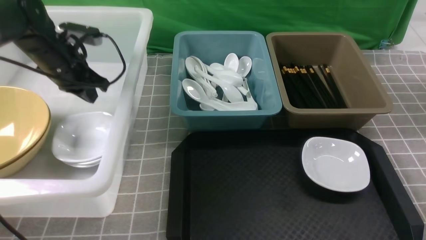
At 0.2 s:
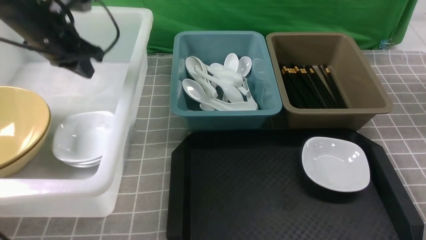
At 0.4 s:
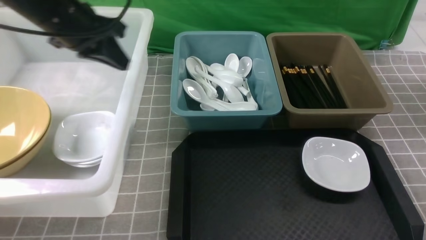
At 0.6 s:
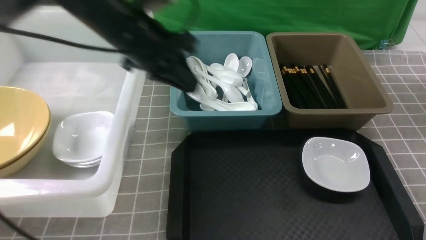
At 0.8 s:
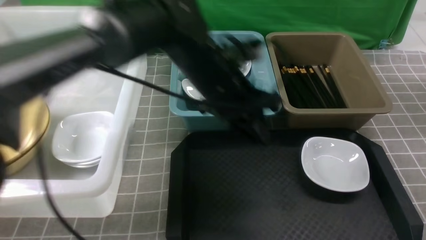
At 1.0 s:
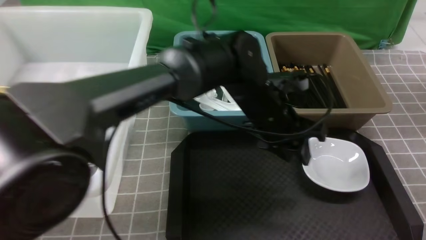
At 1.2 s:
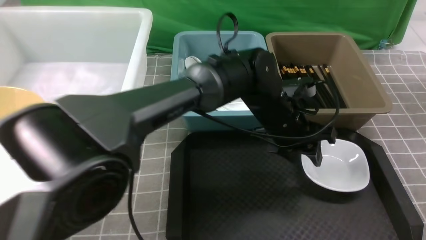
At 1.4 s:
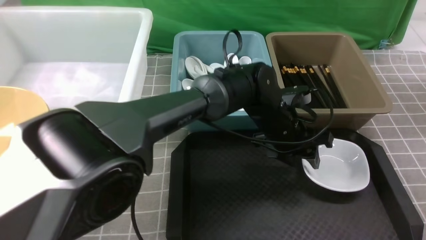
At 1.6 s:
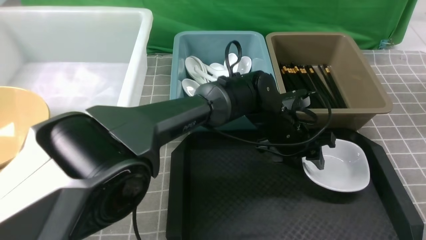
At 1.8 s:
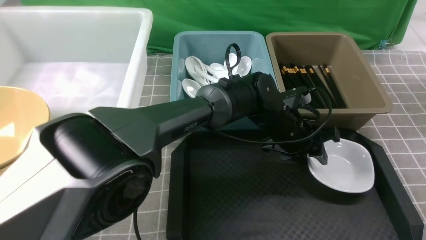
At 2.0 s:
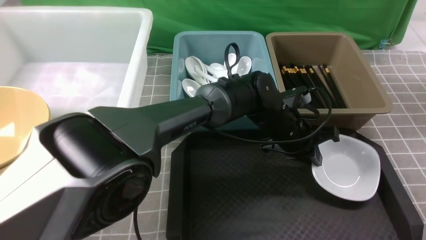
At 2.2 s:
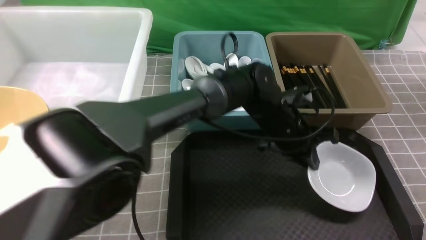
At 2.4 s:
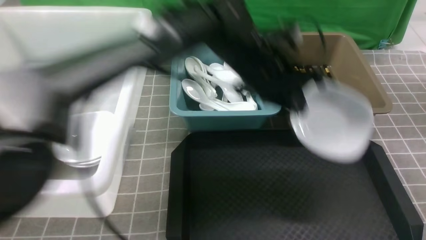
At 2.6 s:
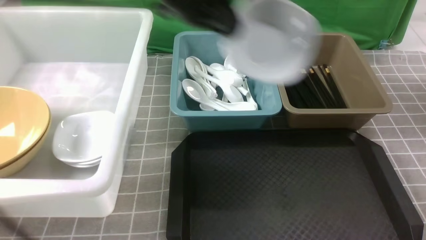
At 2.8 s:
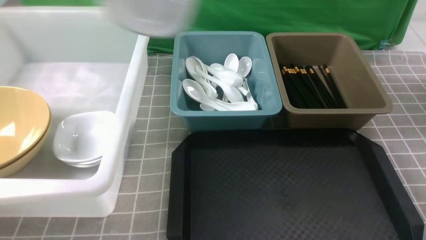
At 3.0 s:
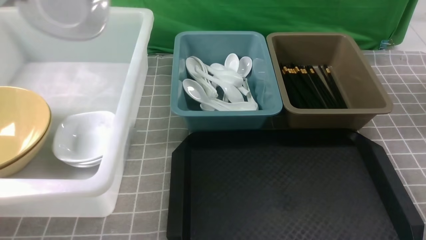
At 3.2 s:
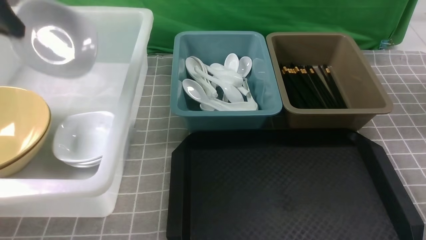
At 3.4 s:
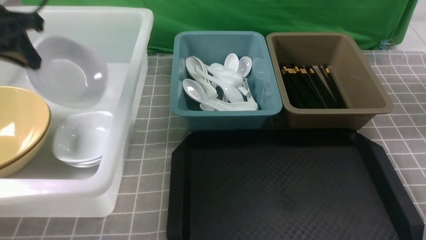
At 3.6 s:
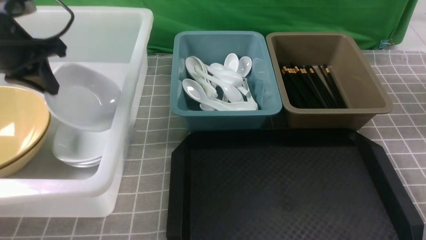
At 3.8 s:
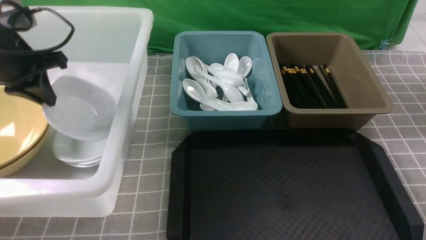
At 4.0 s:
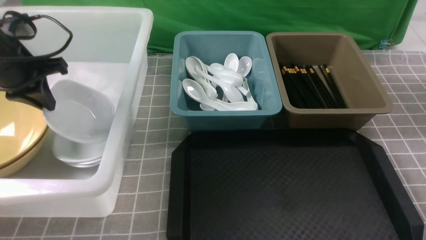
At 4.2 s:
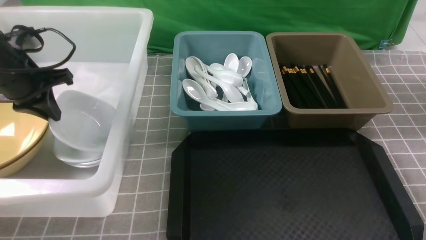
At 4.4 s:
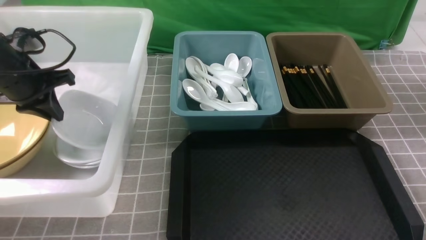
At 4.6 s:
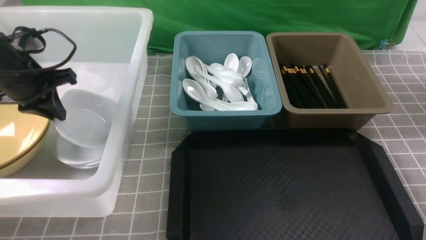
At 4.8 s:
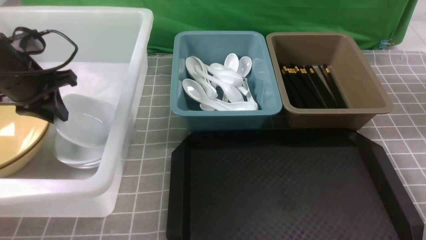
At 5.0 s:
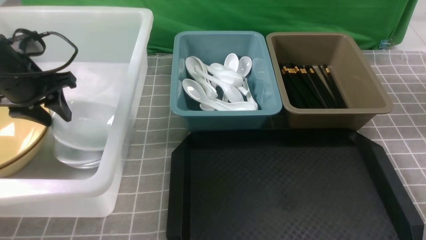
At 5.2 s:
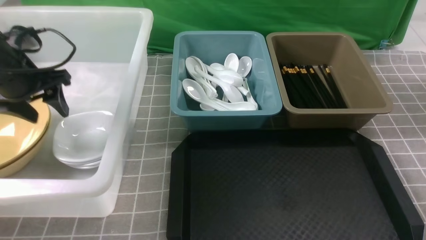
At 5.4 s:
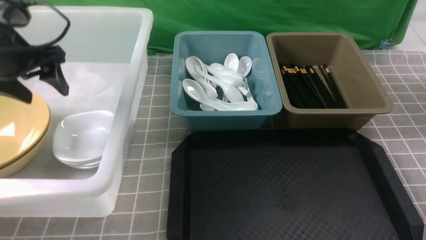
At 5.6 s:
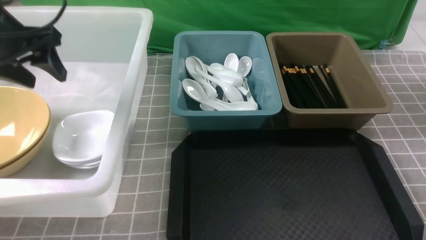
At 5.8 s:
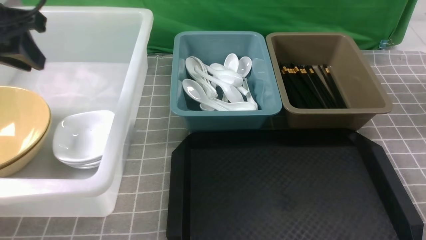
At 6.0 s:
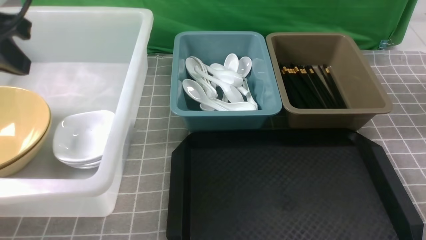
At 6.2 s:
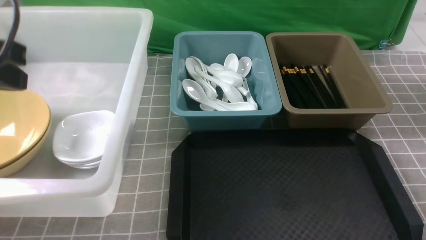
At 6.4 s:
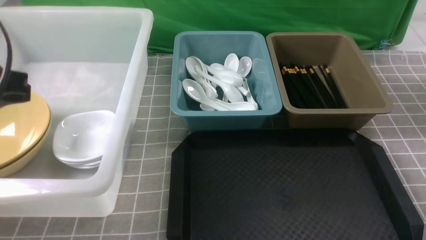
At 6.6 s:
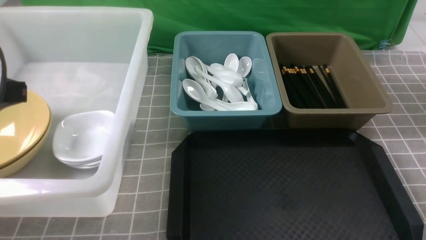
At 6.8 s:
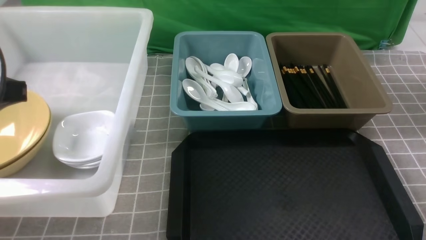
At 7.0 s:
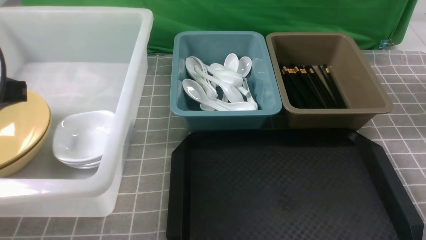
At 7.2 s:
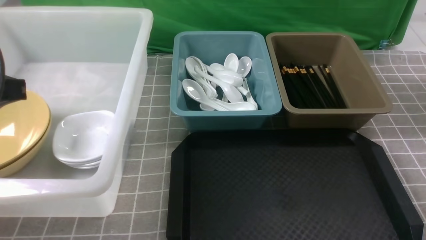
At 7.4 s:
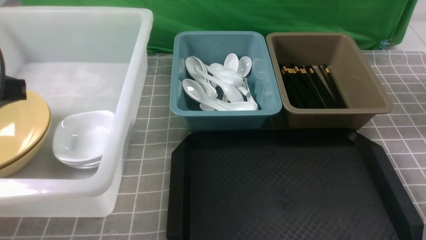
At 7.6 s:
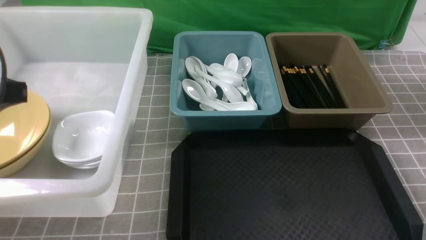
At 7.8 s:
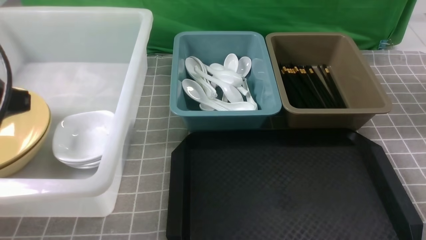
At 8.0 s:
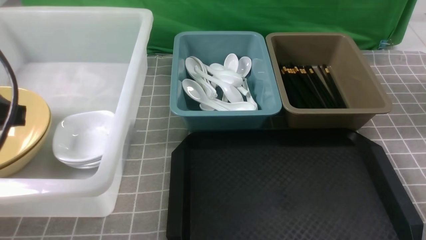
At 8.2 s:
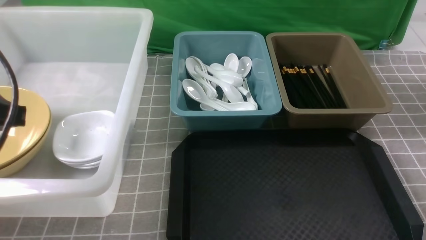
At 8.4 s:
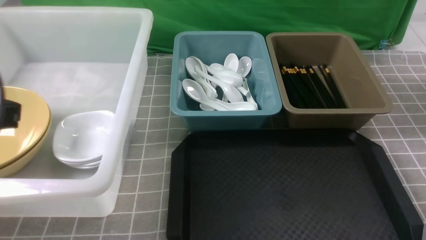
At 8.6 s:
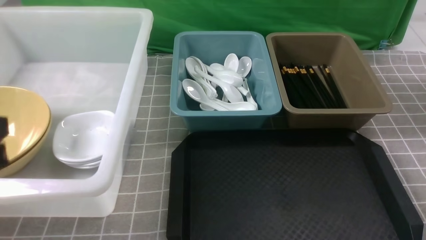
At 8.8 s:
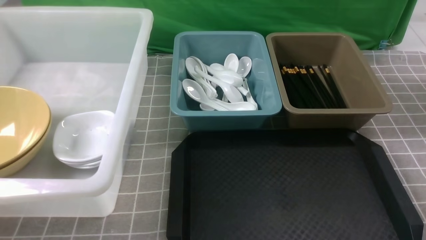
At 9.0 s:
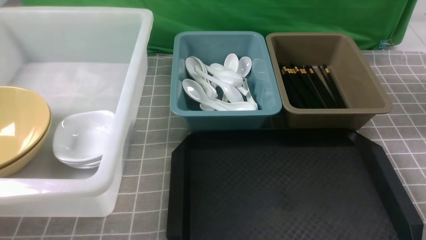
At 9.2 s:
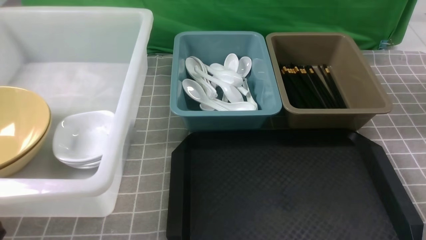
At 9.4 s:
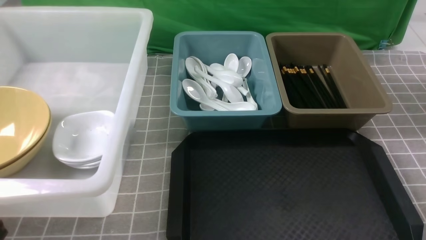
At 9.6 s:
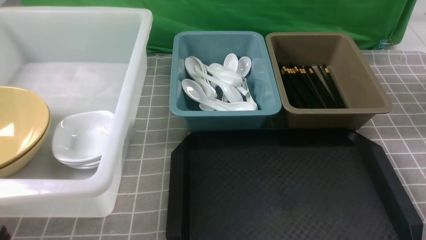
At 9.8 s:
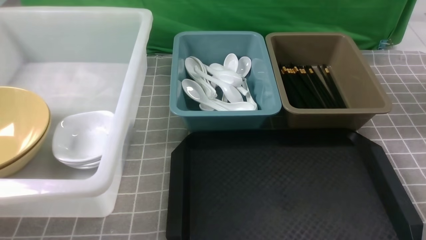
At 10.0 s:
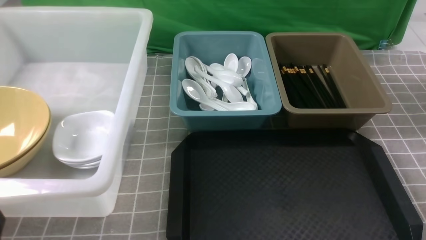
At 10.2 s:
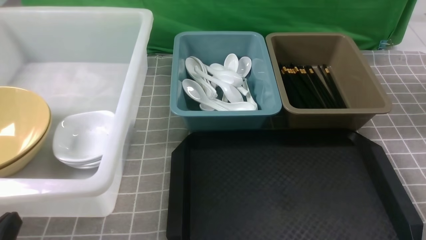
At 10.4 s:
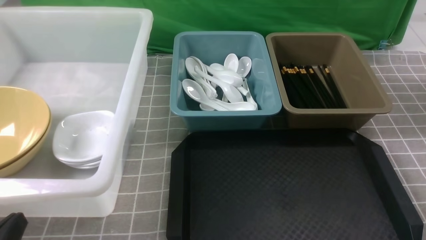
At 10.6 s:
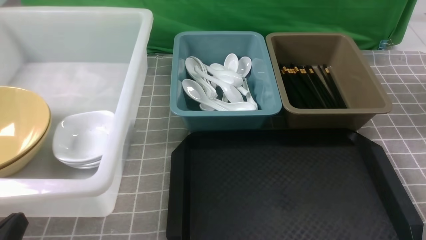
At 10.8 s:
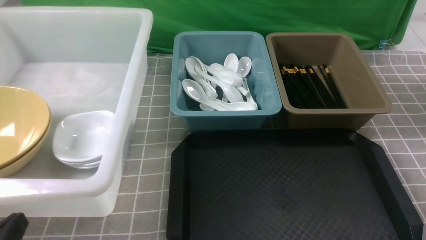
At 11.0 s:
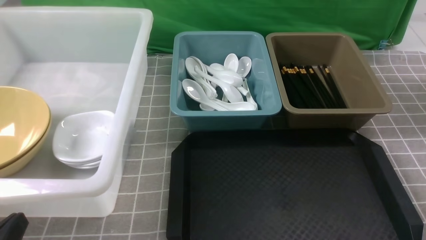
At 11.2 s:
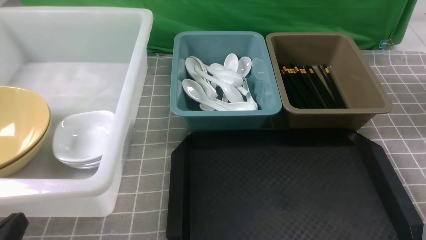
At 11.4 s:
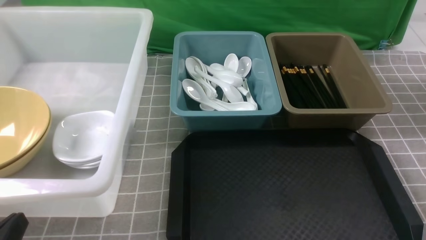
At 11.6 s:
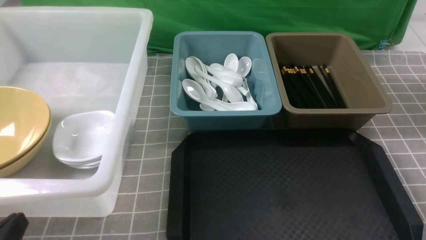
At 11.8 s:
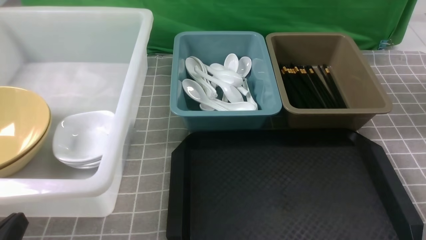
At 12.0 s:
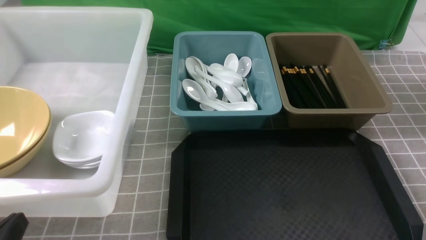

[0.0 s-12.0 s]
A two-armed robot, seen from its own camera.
Task of the whole recording: on grey table put chopsticks spoon bowls plates into blue grey white boxes.
Step, 0.6 to 2.2 s: use the left arm to grab the plate.
Step, 2.4 to 5.2 s: use the left arm to put the plate into the large storage box on the left.
0.0 to 1.6 s: The left gripper heads to the right, covering about 40 cm, and opens up.
1.6 to 3.0 s: The left gripper is displaced to the left and upward by approximately 50 cm, and closes.
3.0 to 4.4 s: The left gripper moves downward, roughly 15 cm.
4.4 to 6.0 s: The left gripper goes roughly 15 cm upward and backward, and opens, then closes once more.
6.0 to 7.6 s: The left gripper goes about 5 cm backward.
7.6 to 9.0 s: The left gripper shifts about 15 cm backward and downward.
10.4 to 12.0 s: Both grippers stay about where they are.
